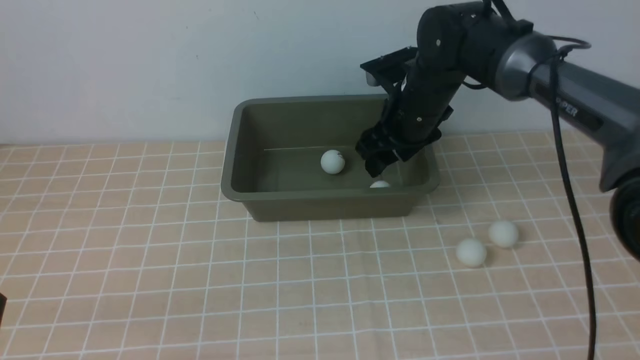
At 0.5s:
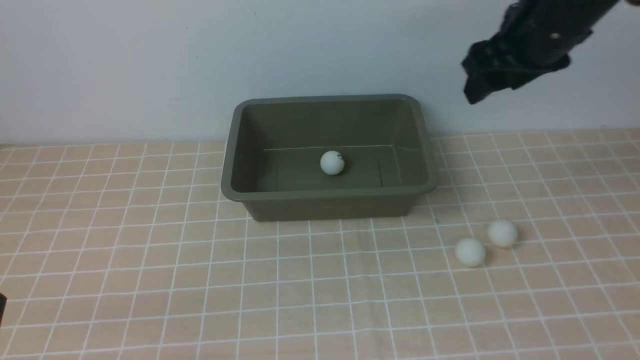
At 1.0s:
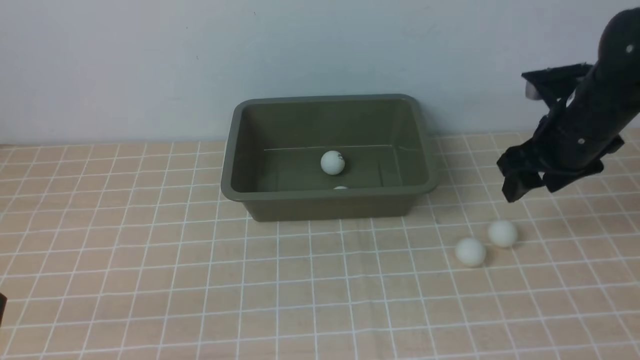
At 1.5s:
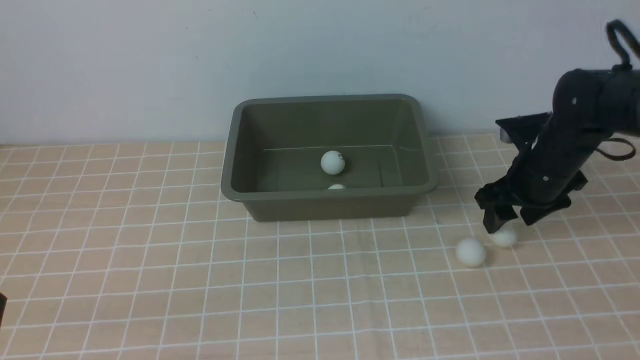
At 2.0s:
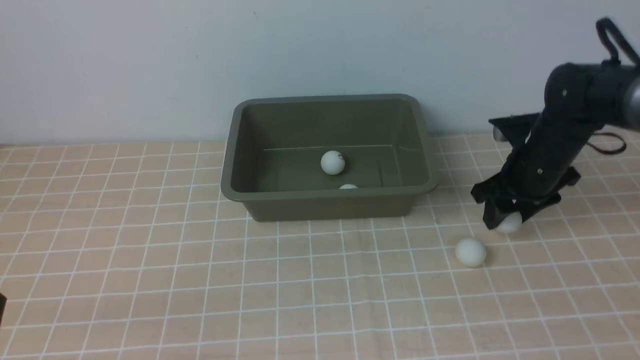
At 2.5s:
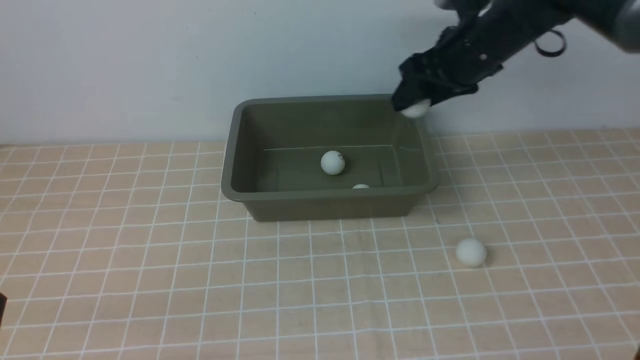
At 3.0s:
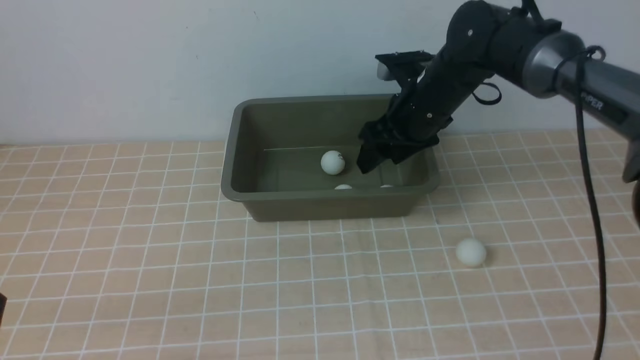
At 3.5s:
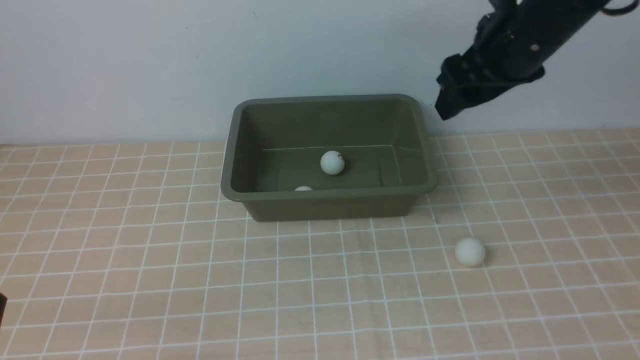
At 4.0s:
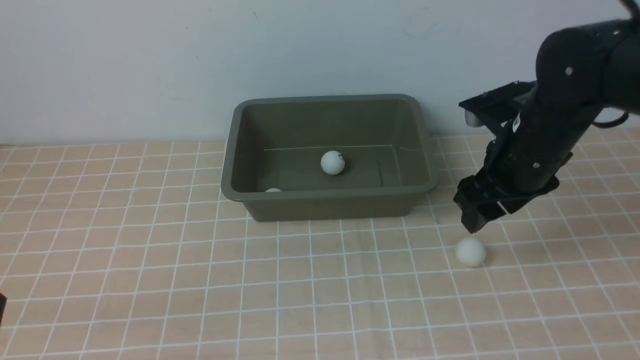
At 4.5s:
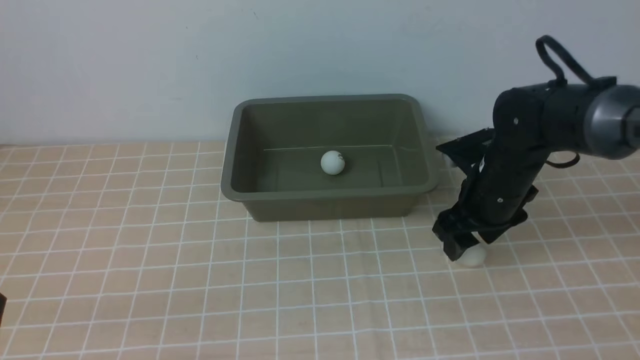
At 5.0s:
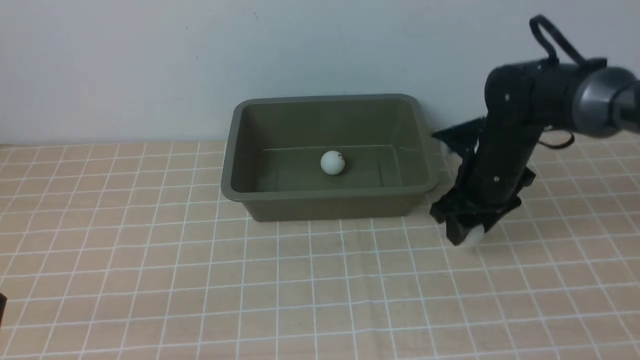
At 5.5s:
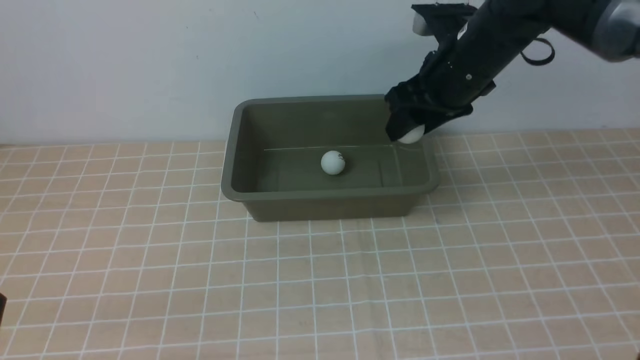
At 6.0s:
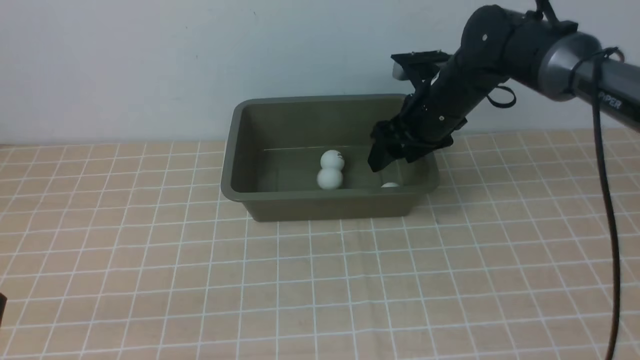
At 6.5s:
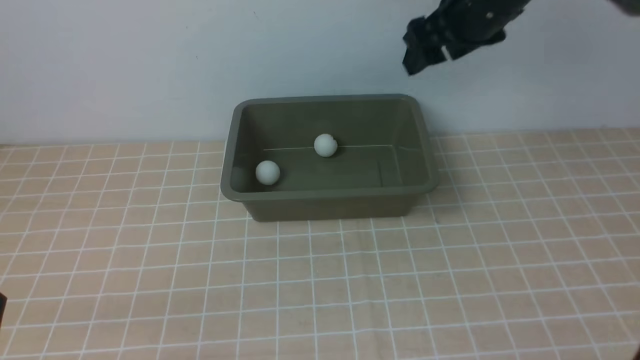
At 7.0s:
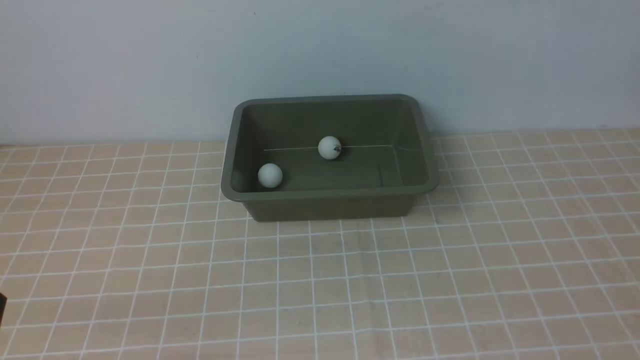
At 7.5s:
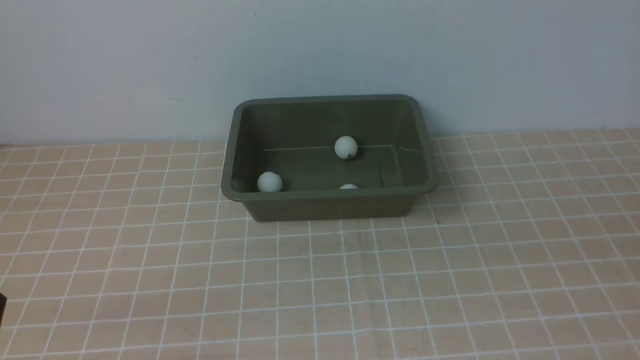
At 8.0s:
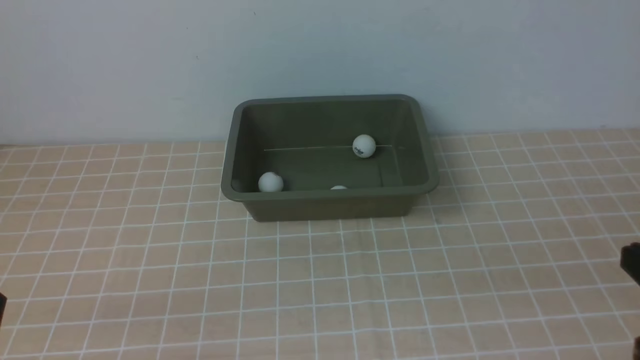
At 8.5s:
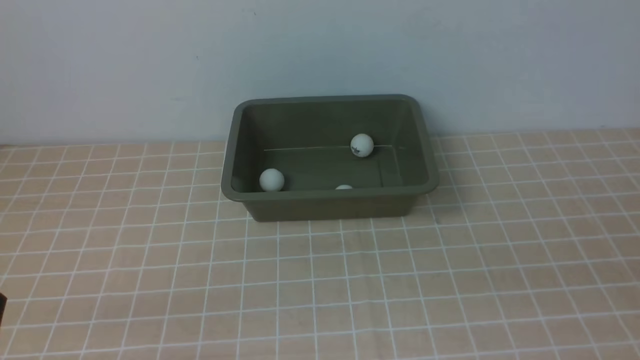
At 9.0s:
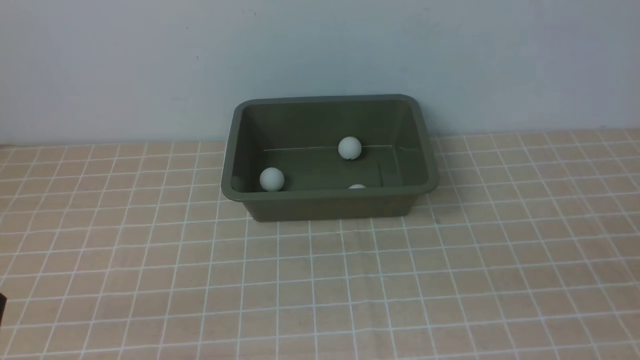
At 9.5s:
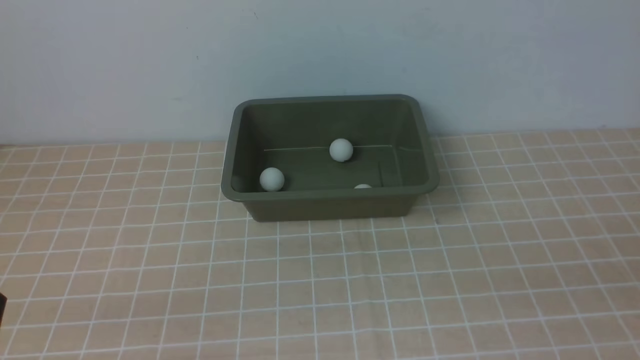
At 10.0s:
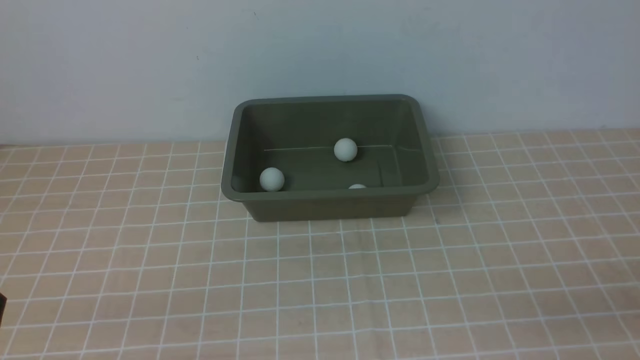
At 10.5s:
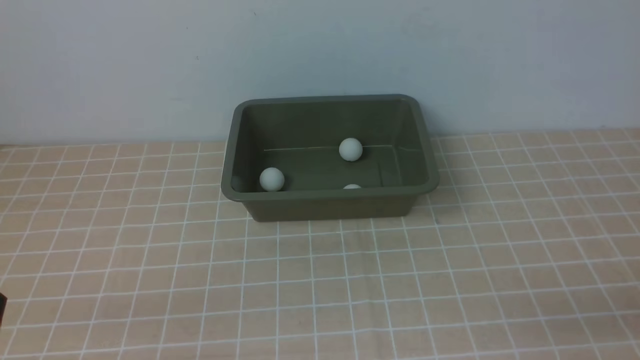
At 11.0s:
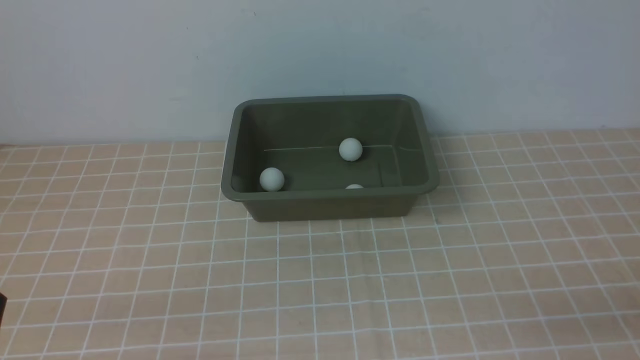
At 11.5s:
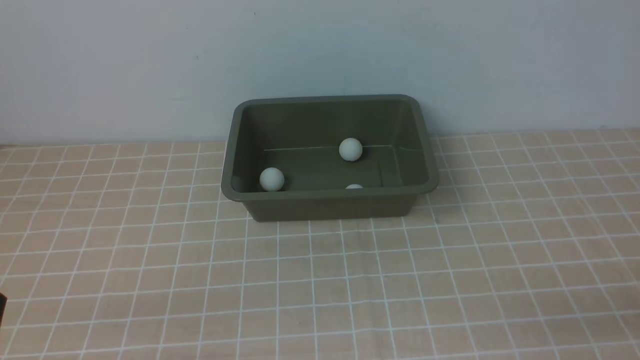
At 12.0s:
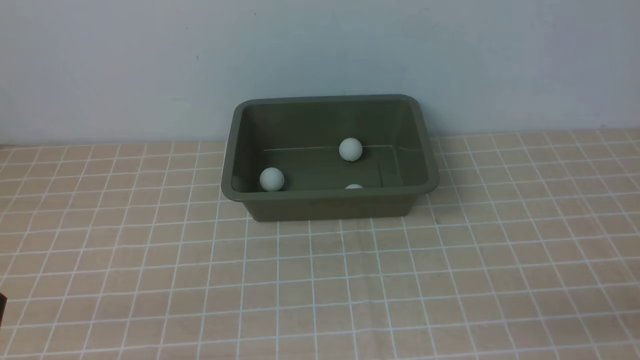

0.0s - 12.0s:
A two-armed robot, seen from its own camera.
Step, 0.5s - 2.5s: use the right arm to clamp the table tennis ball closest to it.
Step, 3.0s - 3.5s: use the right arm to put the table tennis ball into the box.
Step, 4.0s - 5.0s: use the right arm to clamp the table tennis ball closest to it.
Step, 5.5s - 6.0s: use the right arm to put the table tennis ball into the box.
0.0s - 2.0s: The right gripper shifts some 15 cm to the right and downward.
2.0s - 4.0s: The right gripper travels backward and to the left by about 10 cm.
4.0s - 6.0s: The right gripper goes up and down, roughly 10 cm each way, reversing 2 times.
6.0s - 8.0s: The right gripper goes some 35 cm backward and to the right, and closes its fingers.
8.0s - 10.0s: The right gripper is displaced downward by roughly 5 cm.
10.0s - 12.0s: Both grippers stay about where they are.

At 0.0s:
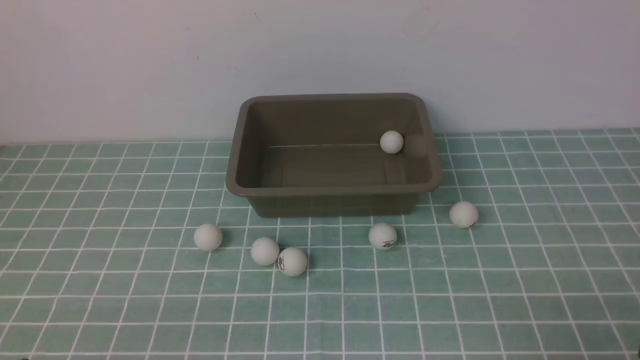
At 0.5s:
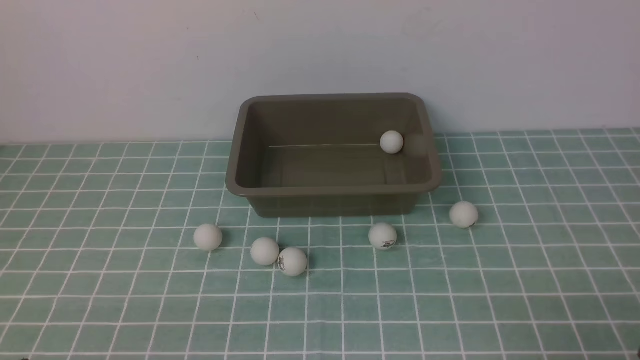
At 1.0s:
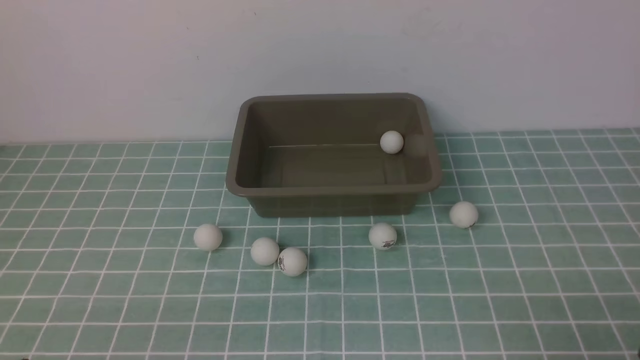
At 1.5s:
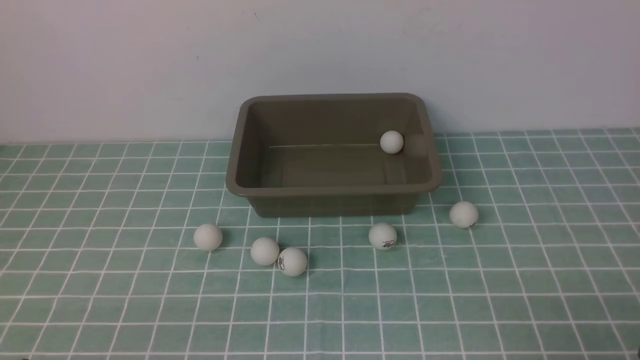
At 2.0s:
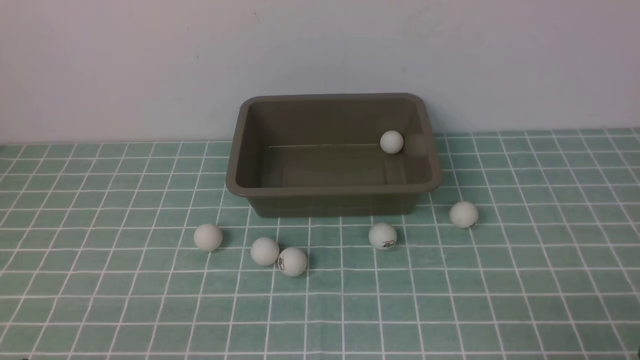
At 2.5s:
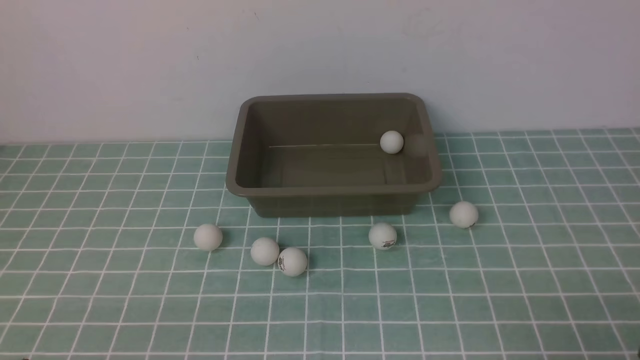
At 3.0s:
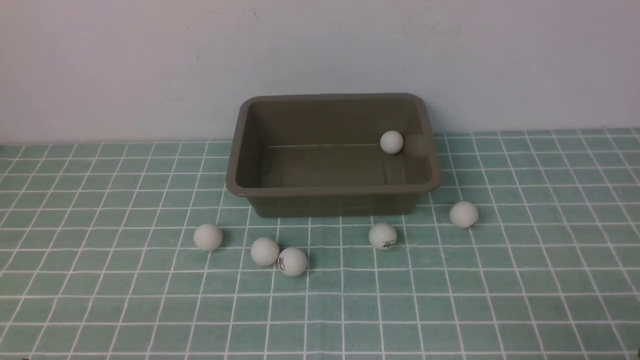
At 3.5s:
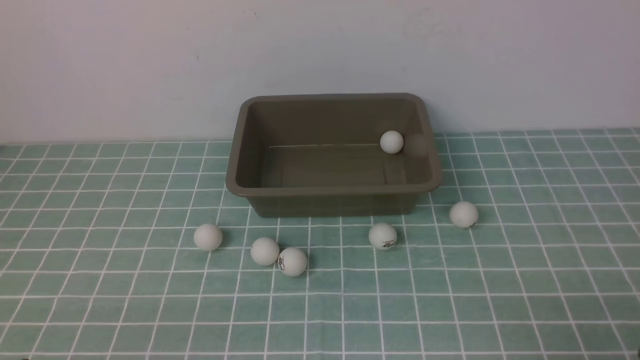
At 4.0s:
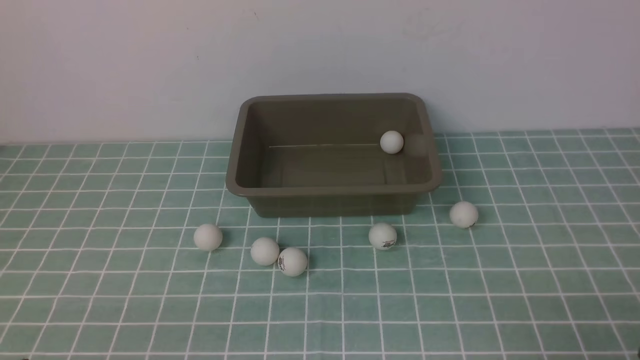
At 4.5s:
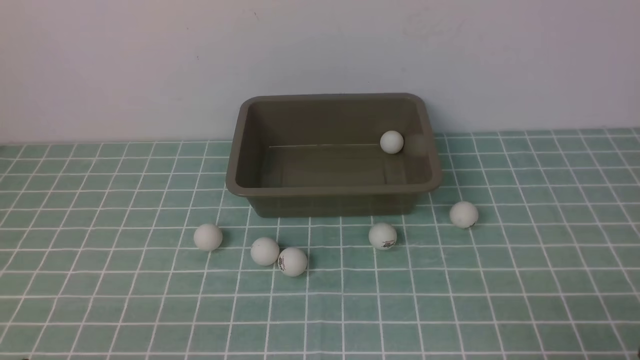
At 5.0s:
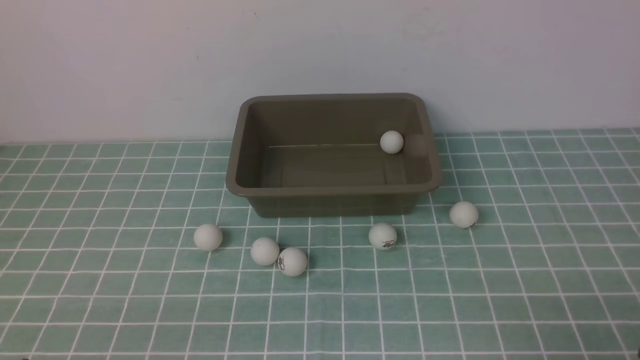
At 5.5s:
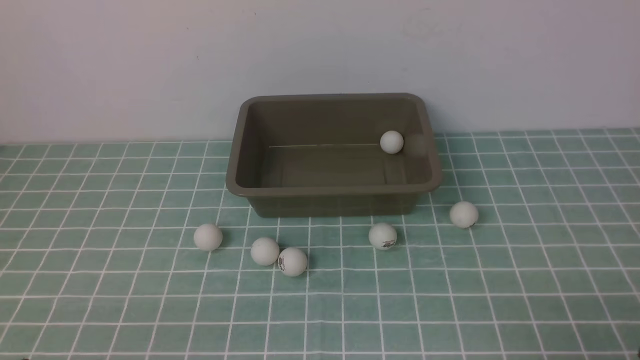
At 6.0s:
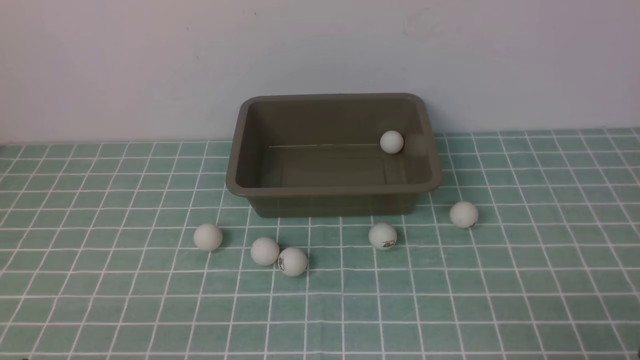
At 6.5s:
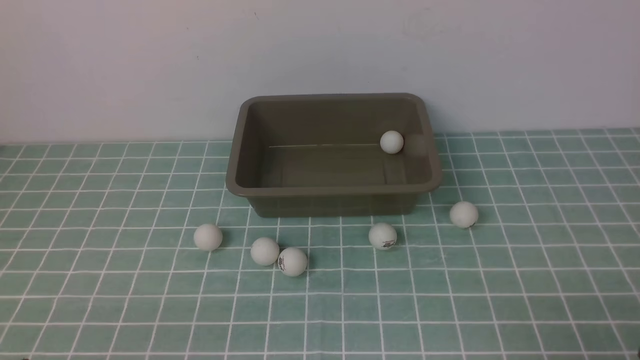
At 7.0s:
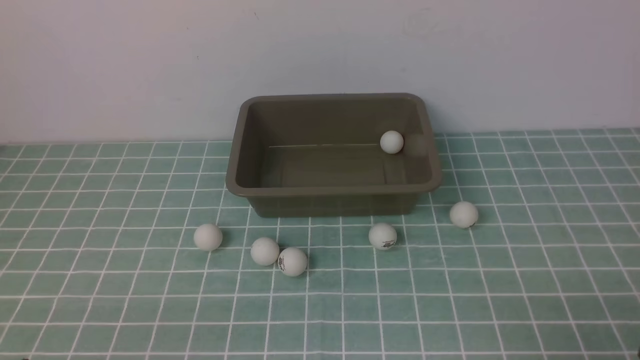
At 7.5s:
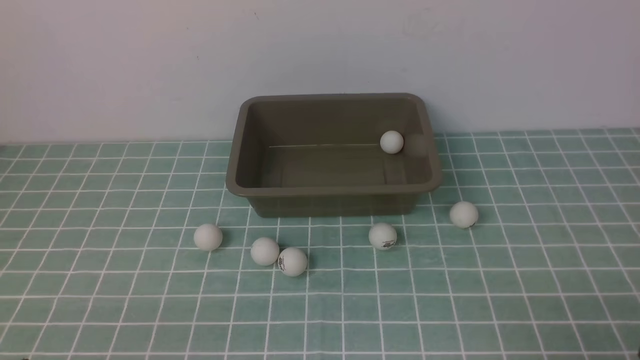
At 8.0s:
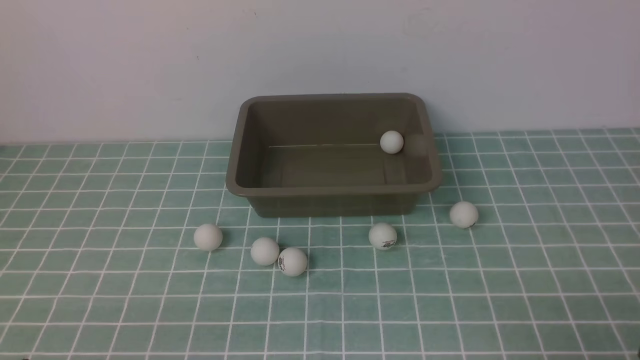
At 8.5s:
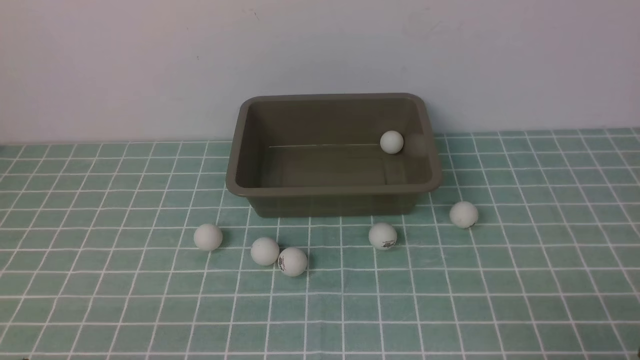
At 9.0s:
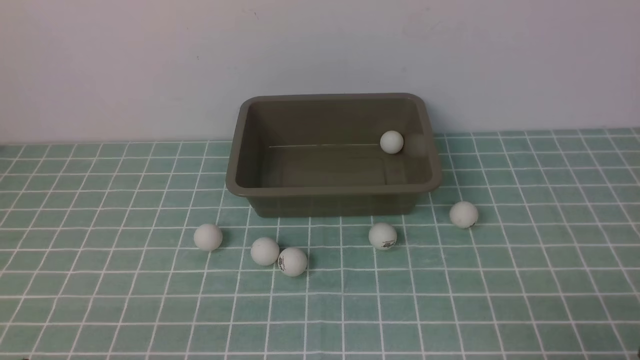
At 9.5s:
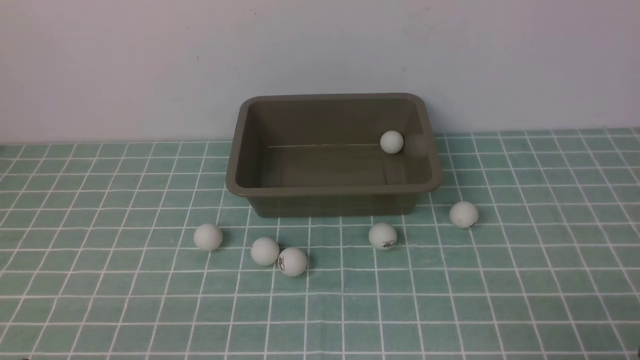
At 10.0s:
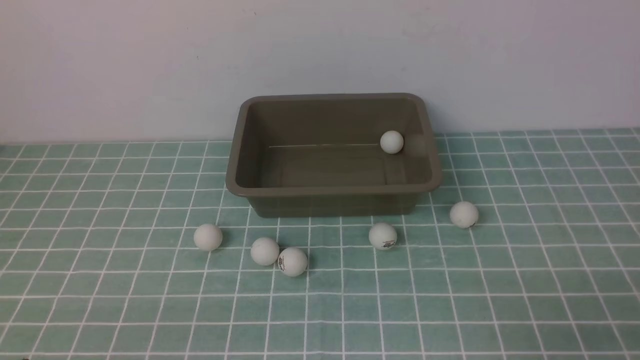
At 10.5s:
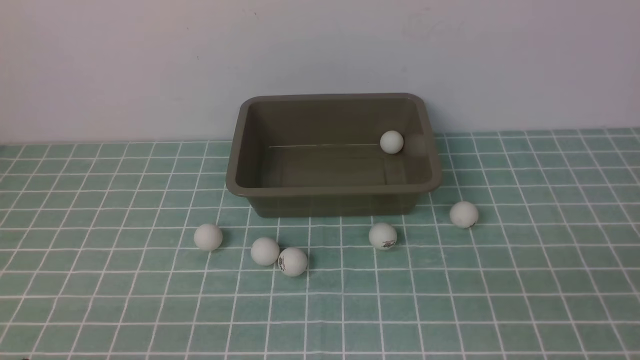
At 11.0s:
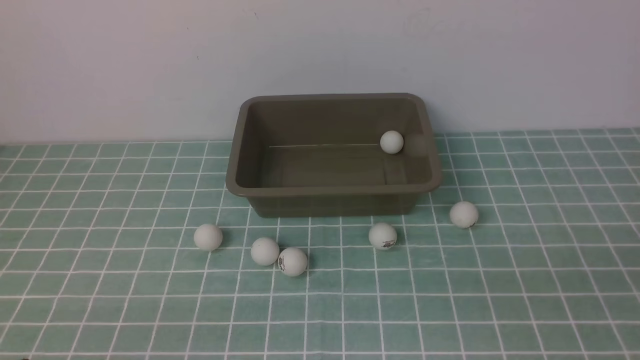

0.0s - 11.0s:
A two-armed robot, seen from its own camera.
0.0s - 9.0s: Both grippers stay about where they are.
